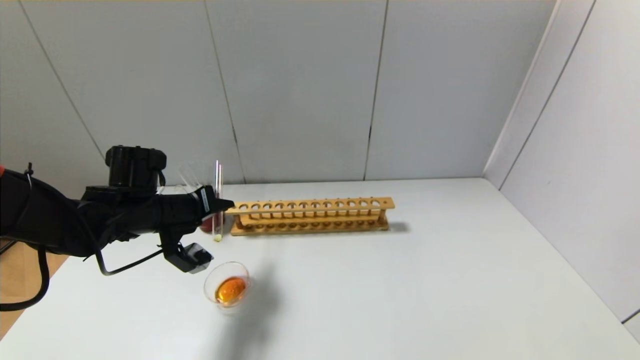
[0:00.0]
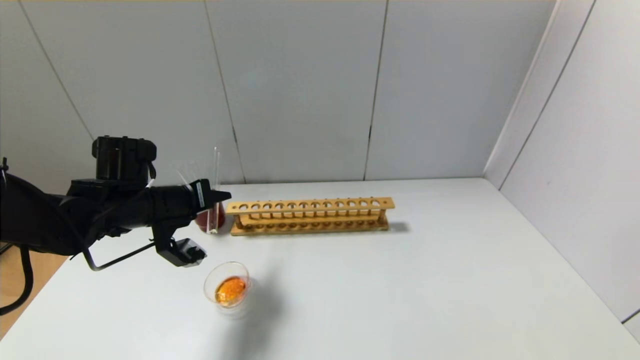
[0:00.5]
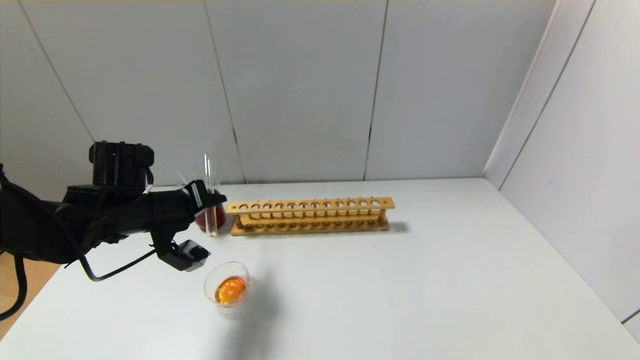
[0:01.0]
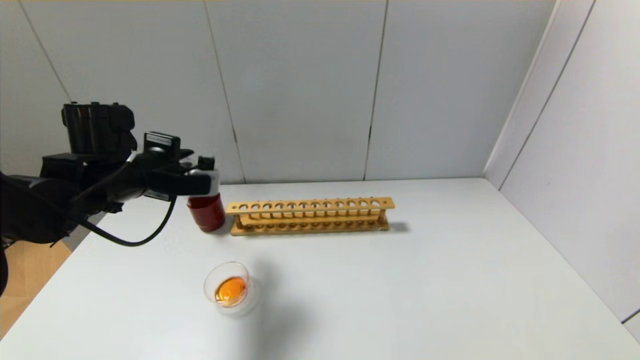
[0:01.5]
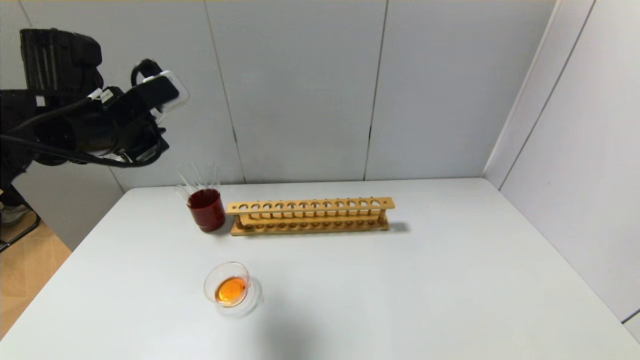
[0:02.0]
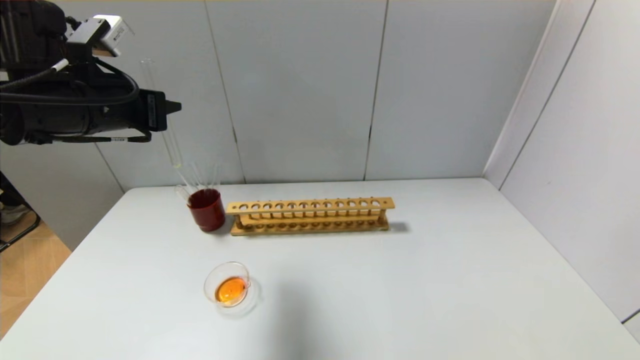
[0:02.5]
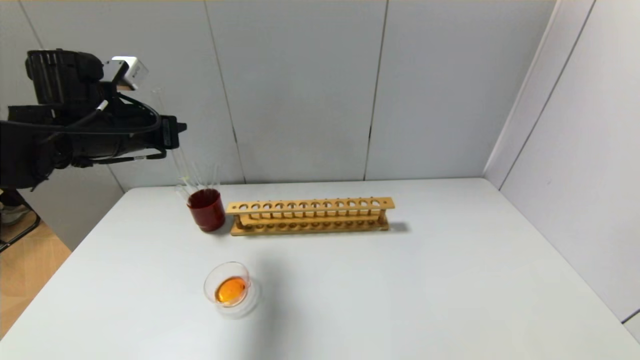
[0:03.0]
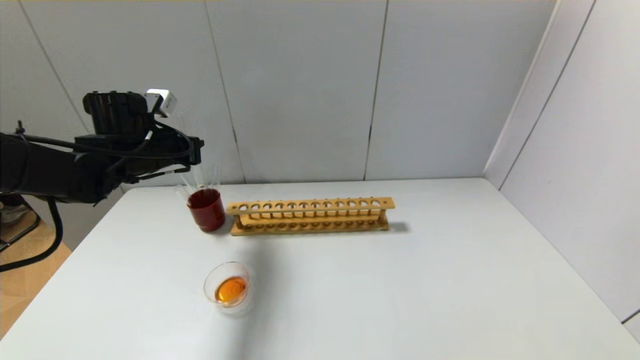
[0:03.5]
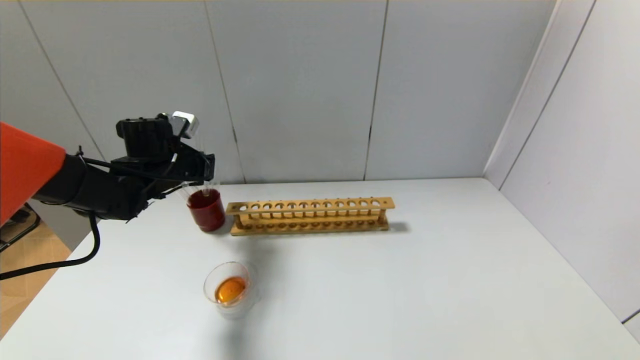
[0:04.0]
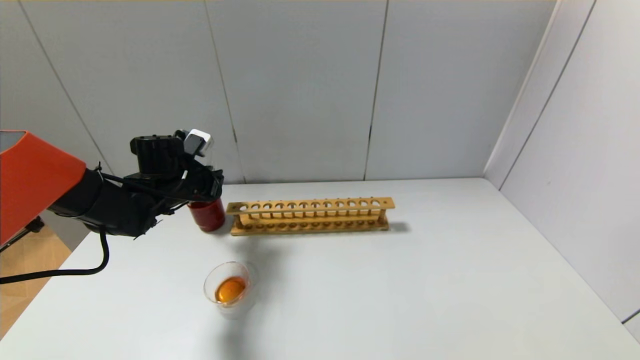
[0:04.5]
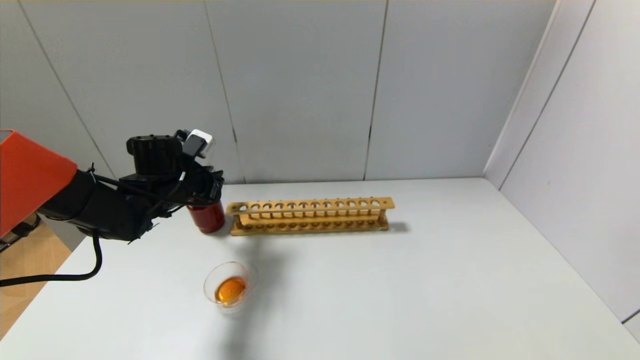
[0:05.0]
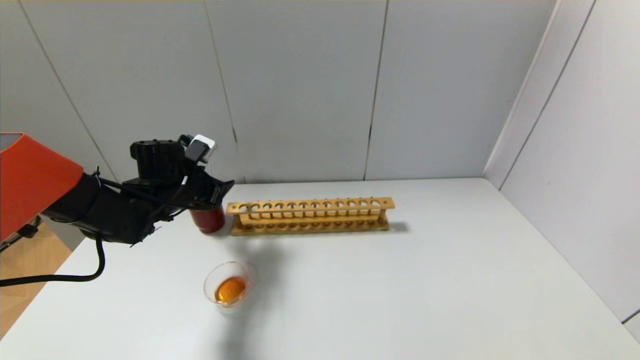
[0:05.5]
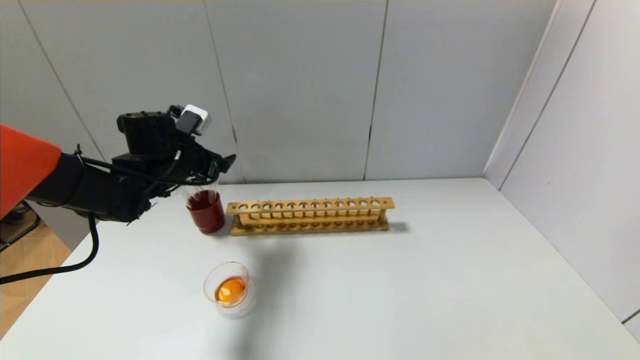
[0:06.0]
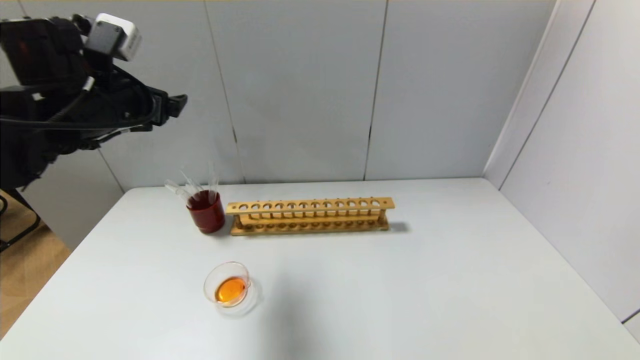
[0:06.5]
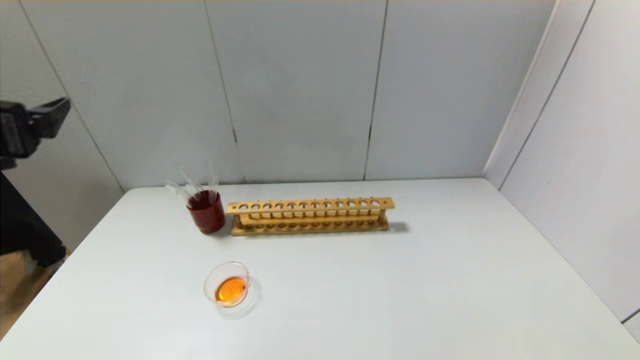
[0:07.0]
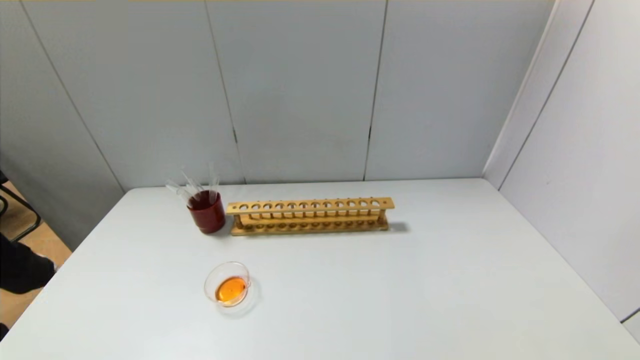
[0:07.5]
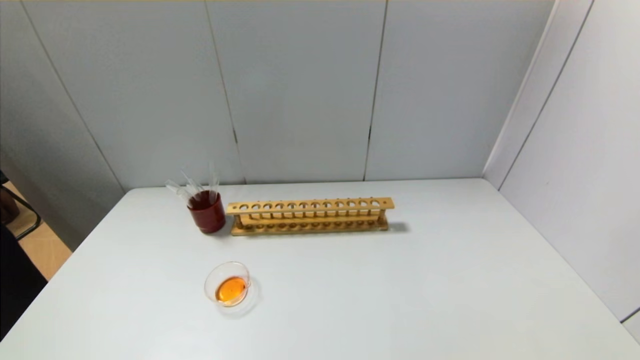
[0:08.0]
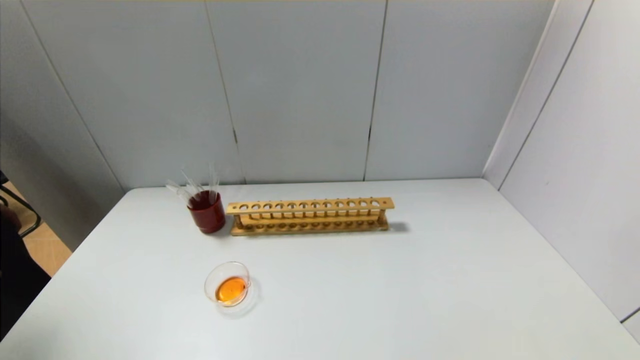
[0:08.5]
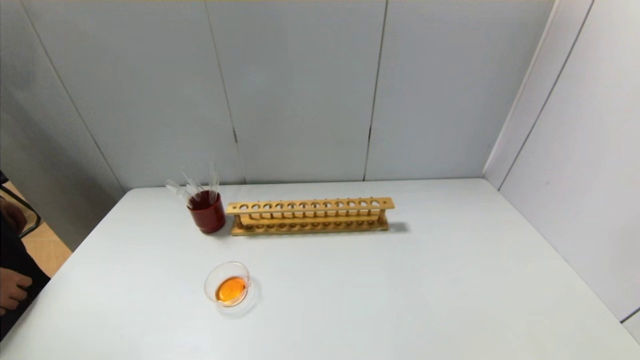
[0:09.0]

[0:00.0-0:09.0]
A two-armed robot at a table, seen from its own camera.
Step, 0:01.5 to 0:05.0: Place the test tube into the brown cup with the left gripper.
0:00.0 to 0:02.0: The left gripper shifts about 15 cm upward.
0:02.0 to 0:04.5: The left gripper shifts approximately 20 cm downward and forward.
0:04.5 to 0:07.0: The left gripper shifts approximately 30 cm backward and upward, and opens.
0:07.0 to 0:09.0: The left gripper is displaced downward and backward by about 30 cm.

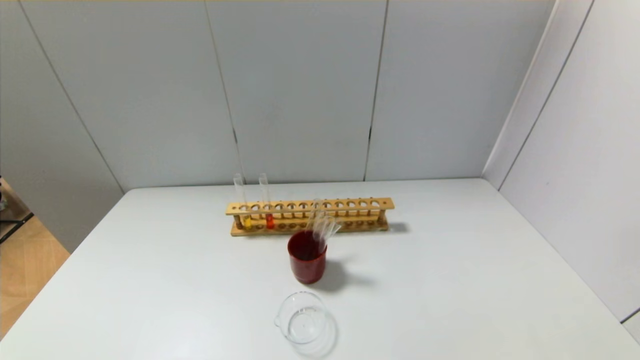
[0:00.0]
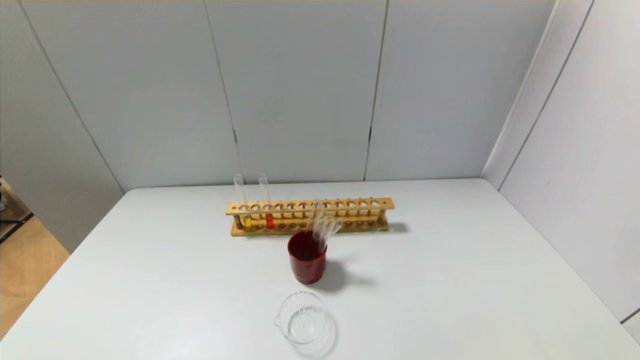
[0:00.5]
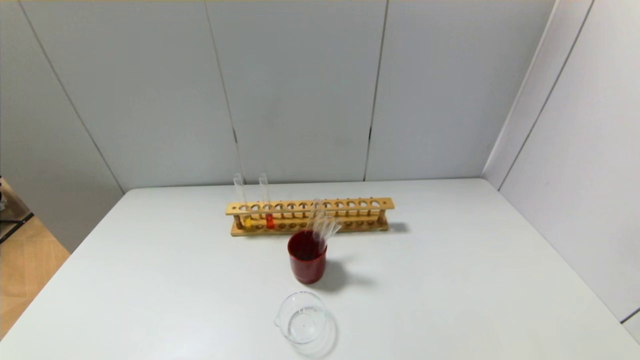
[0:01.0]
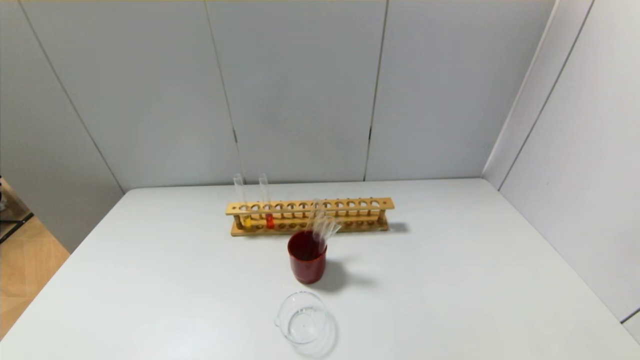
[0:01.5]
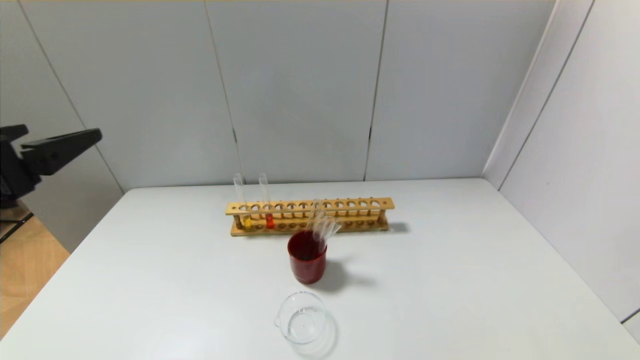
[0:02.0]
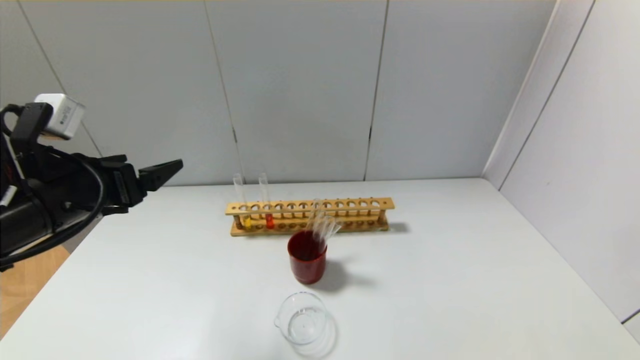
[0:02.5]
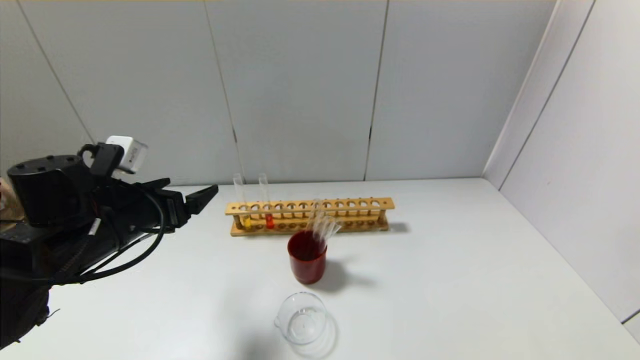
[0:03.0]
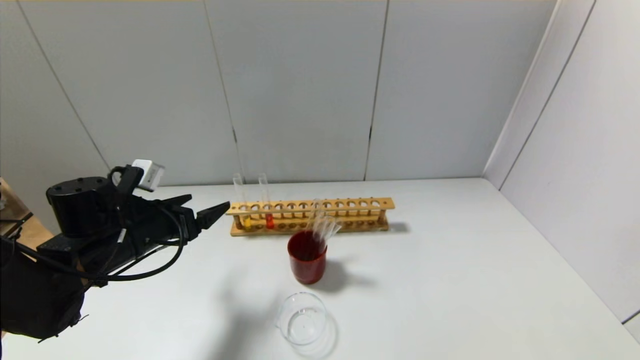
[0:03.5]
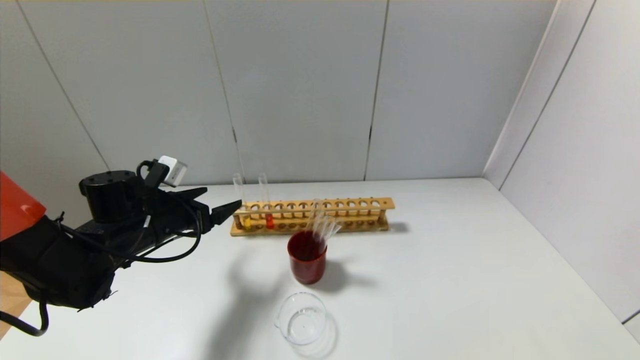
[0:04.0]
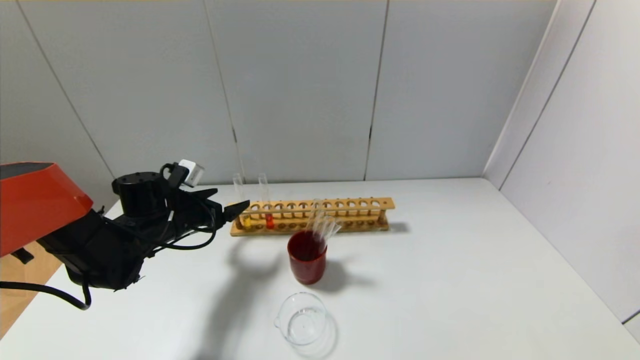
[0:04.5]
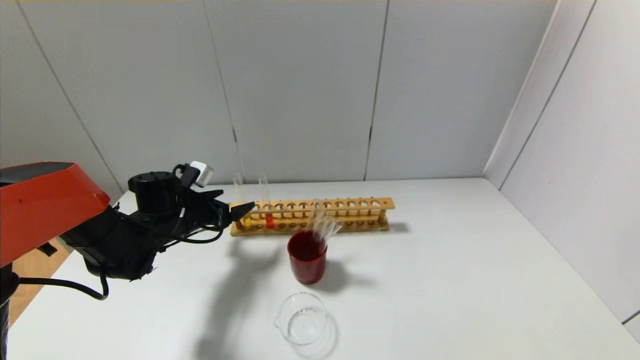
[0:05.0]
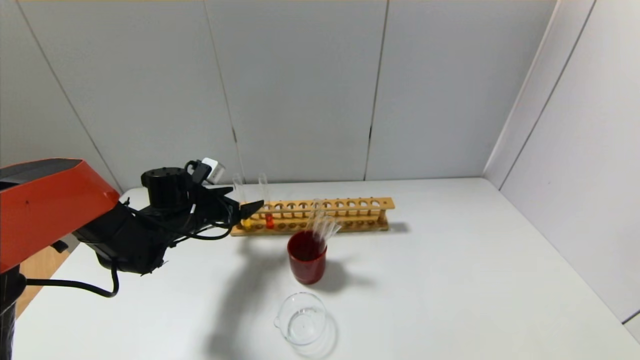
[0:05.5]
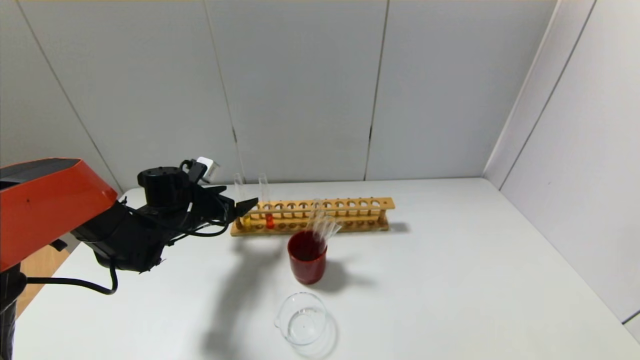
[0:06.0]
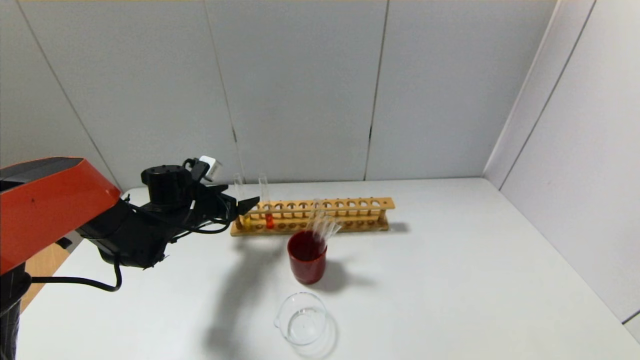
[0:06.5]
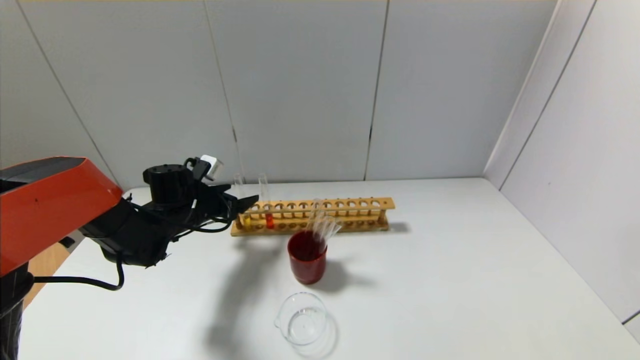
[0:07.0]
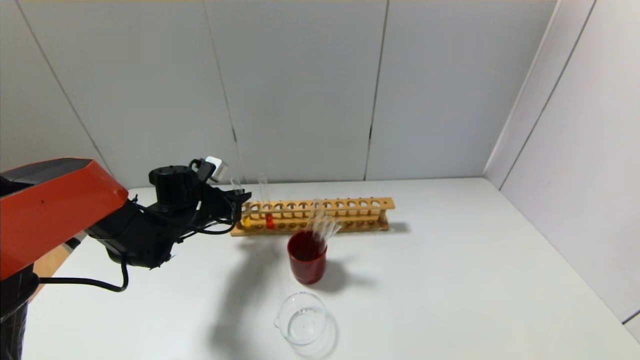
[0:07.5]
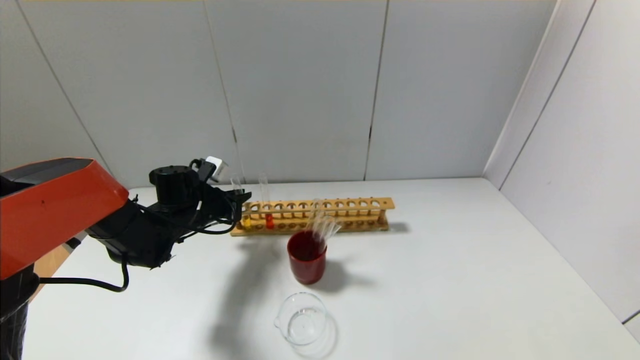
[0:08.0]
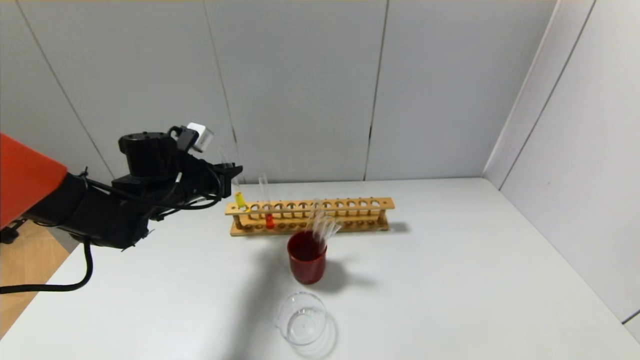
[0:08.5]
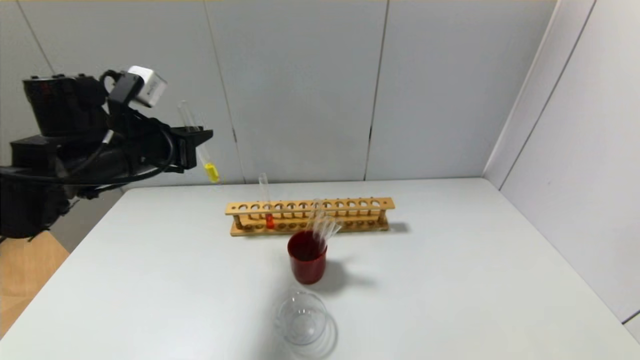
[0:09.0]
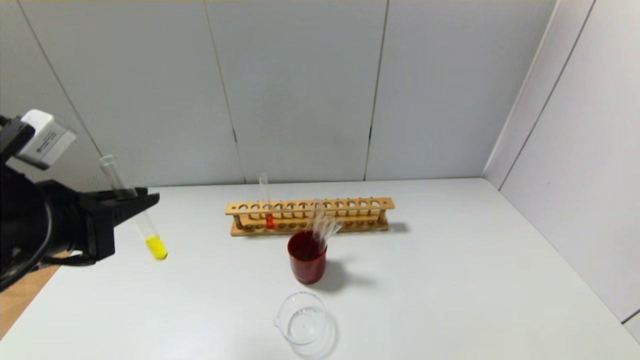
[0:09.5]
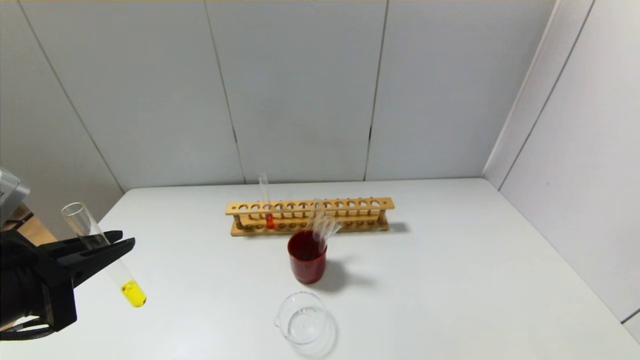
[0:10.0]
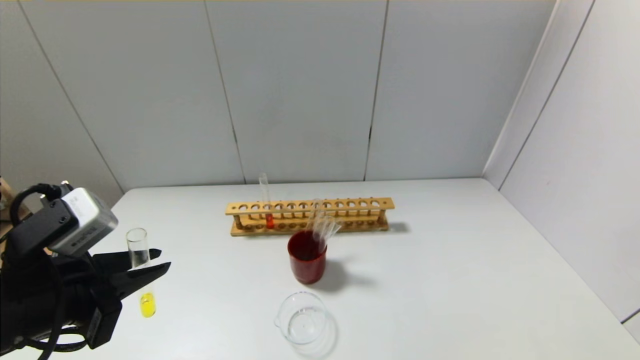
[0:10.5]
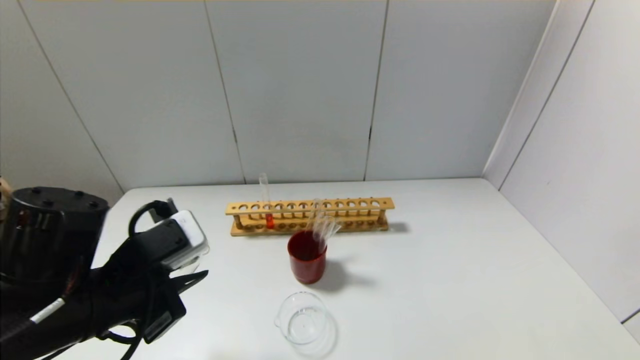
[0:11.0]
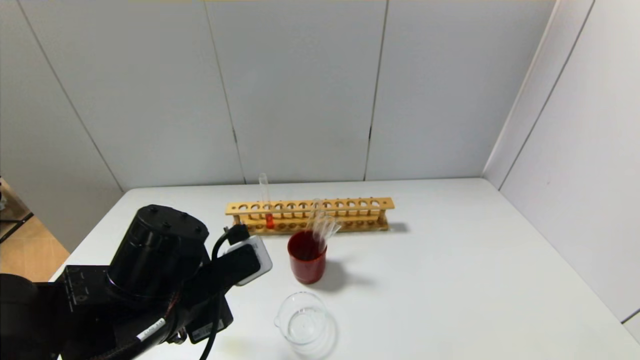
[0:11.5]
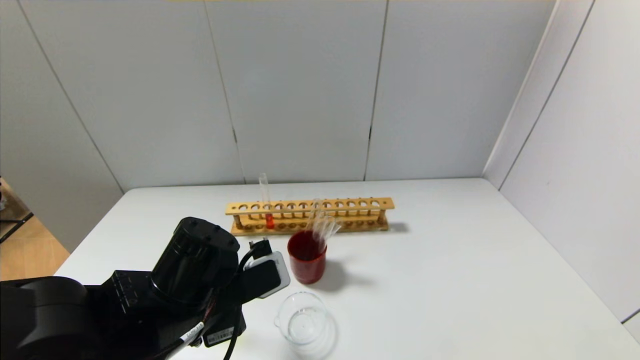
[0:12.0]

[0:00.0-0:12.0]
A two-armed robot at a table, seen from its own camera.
Step, 0:00.0 to 0:07.5: Grasp the yellow reagent with the left gripper.
0:00.0 to 0:02.0: The left gripper goes some 25 cm upward and forward.
0:02.0 to 0:04.0: The left gripper goes about 25 cm forward and downward.
0:04.0 to 0:06.0: The left gripper is displaced forward by roughly 5 cm.
0:06.0 to 0:08.0: The left gripper closes.
0:08.0 to 0:10.0: The left gripper shifts roughly 30 cm backward and upward.
0:10.0 to 0:12.0: The left gripper goes some 15 cm to the right, downward and forward.
